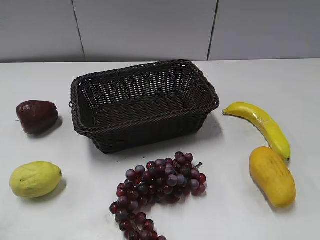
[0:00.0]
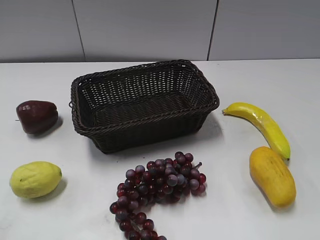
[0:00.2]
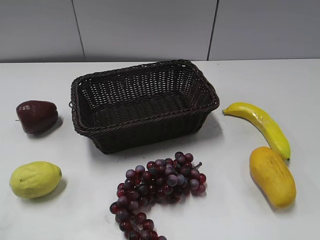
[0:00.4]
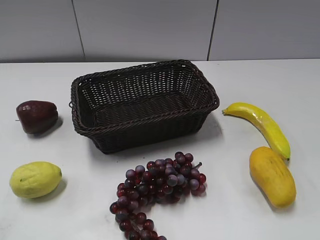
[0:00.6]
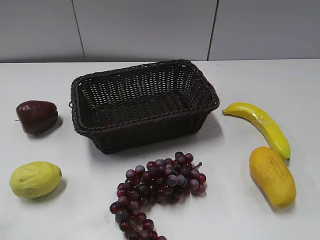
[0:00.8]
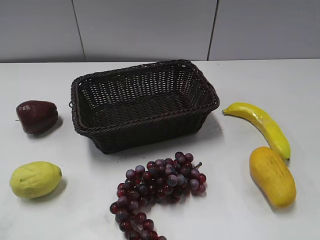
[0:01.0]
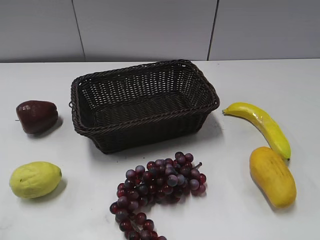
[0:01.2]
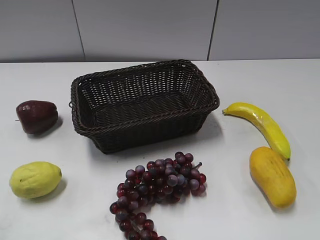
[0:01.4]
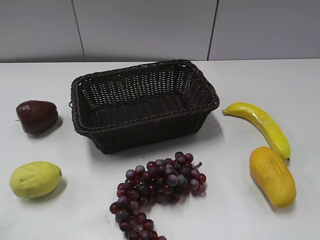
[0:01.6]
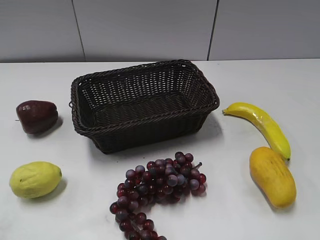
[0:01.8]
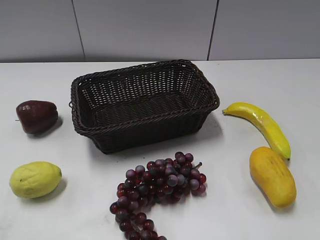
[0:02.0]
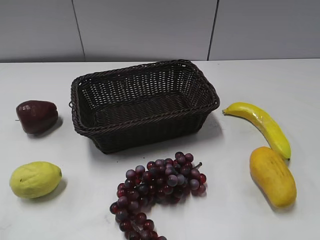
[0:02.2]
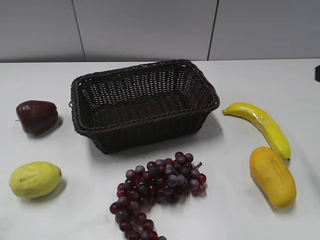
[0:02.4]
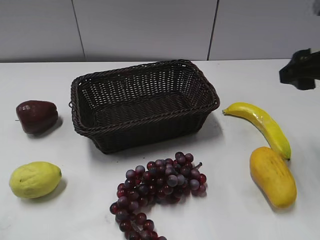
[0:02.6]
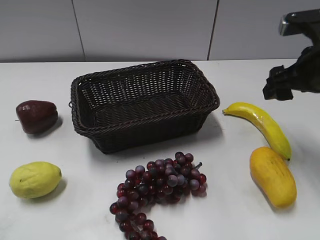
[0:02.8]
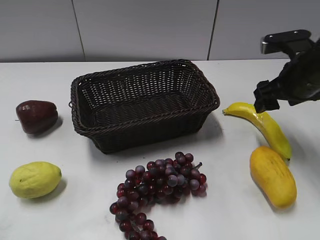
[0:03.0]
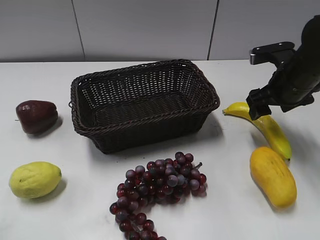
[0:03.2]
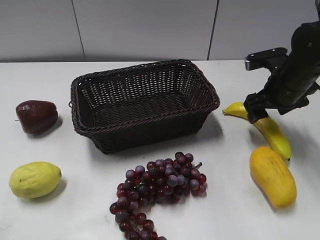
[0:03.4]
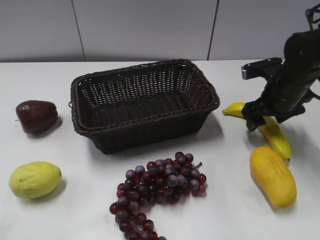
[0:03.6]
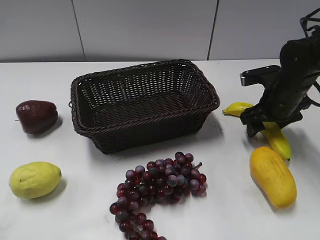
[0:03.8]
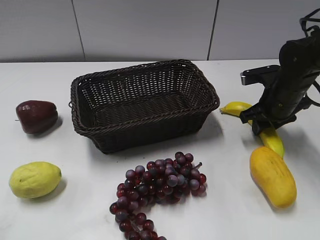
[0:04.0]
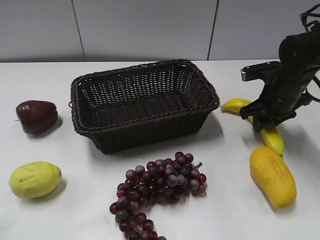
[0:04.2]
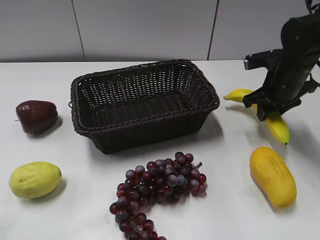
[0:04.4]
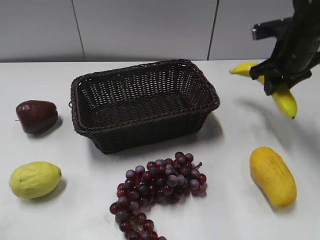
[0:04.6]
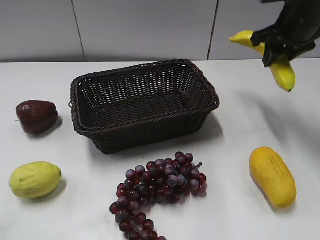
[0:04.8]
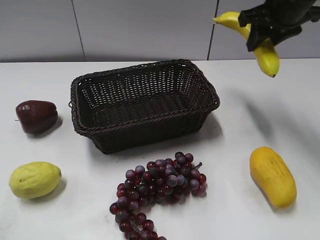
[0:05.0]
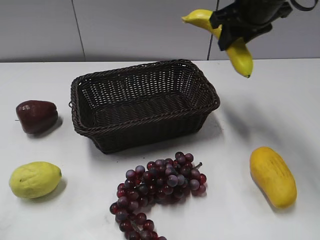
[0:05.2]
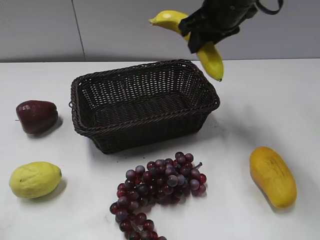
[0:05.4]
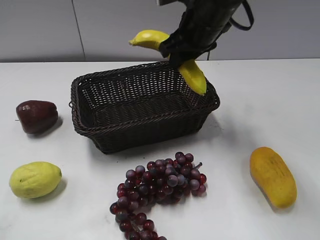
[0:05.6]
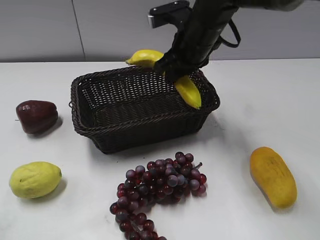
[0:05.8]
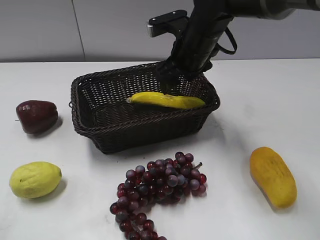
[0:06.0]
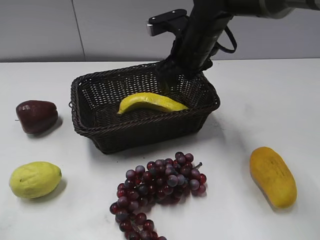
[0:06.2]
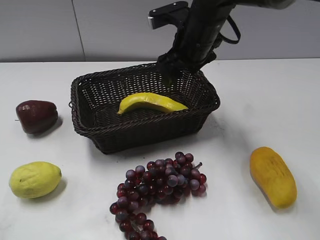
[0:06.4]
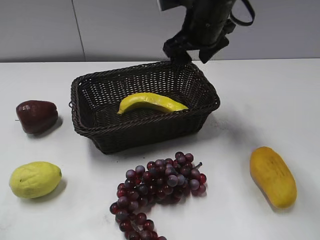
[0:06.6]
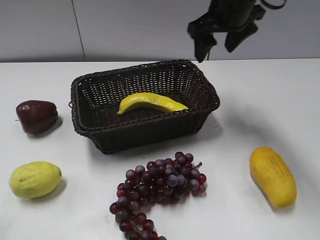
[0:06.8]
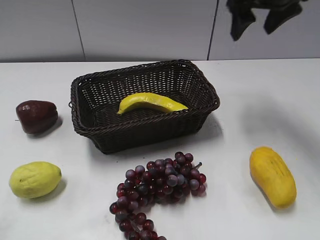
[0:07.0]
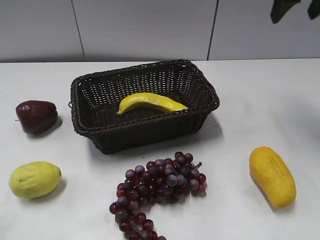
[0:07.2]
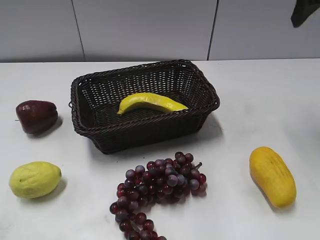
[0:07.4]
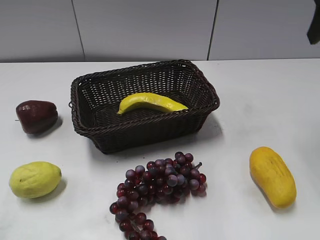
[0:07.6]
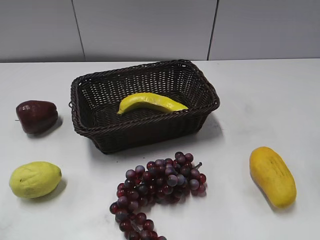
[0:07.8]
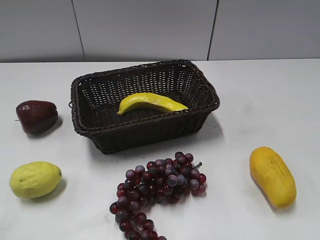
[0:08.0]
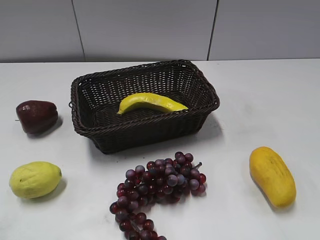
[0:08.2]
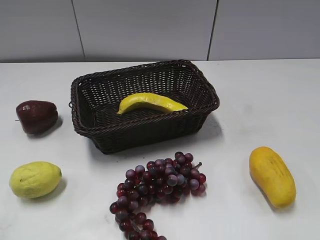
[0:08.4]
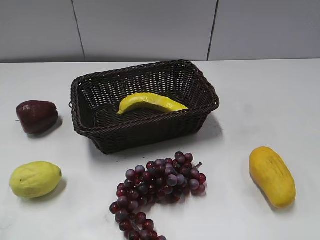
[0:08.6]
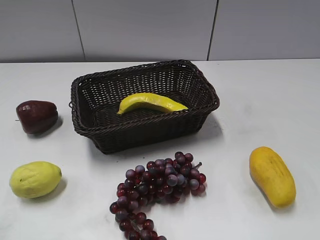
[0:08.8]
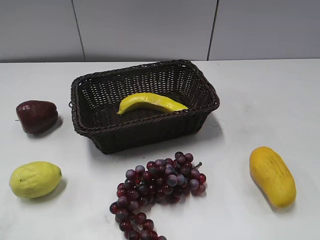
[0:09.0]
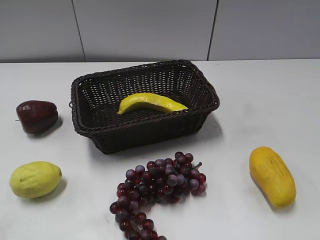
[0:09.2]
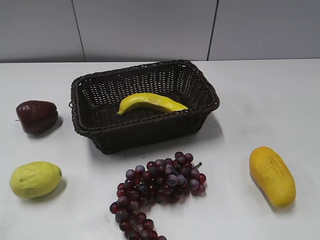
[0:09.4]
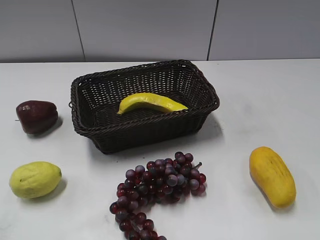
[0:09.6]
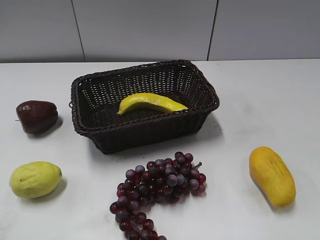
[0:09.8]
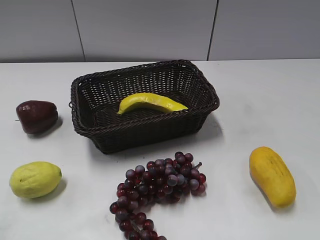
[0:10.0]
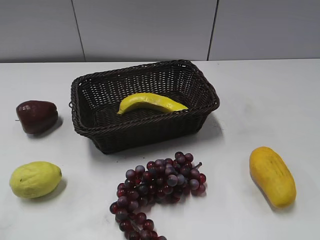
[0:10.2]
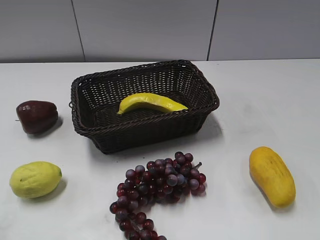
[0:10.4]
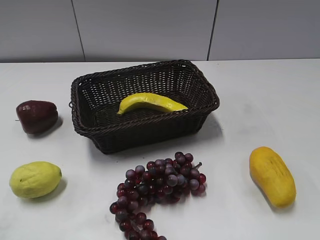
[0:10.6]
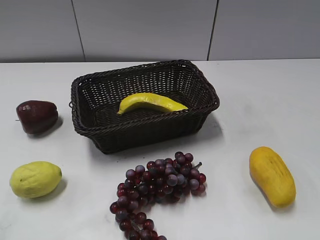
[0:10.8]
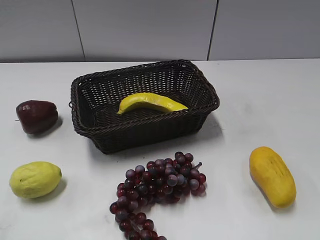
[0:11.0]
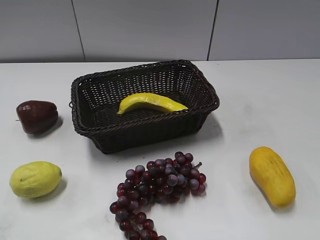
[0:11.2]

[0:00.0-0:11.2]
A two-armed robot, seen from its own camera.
Step, 0:02.4 to 0:04.2: Grasp the banana with right gripper.
Step, 0:04.4 to 0:06.8: Place the banana in the basket with right gripper.
0:01.6 to 0:03.2: The right gripper moves forward and downward, roughly 35 cm.
0:03.2 to 0:04.8: The right gripper shifts about 10 cm upward, and closes up.
0:04.8 to 0:06.4: The right gripper goes roughly 15 cm to the left, and opens.
0:06.4 to 0:08.0: The right gripper is displaced backward, to the right and upward by roughly 35 cm.

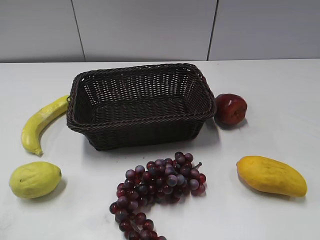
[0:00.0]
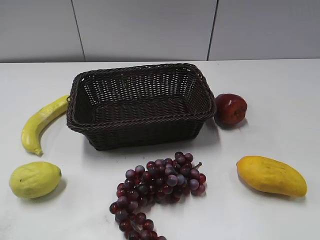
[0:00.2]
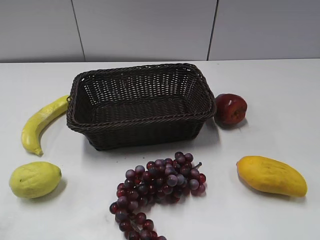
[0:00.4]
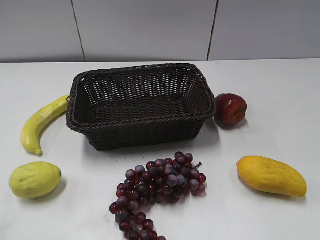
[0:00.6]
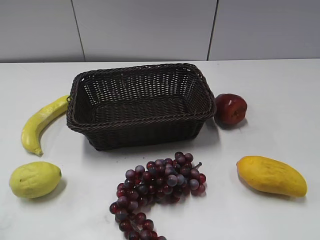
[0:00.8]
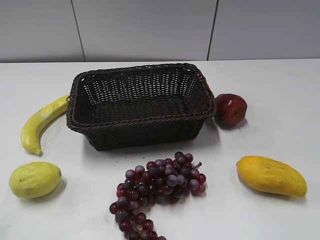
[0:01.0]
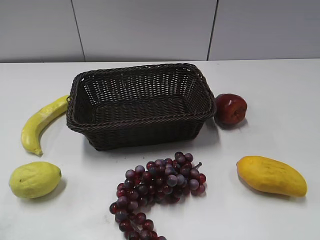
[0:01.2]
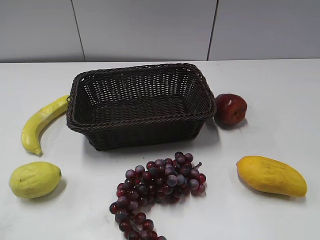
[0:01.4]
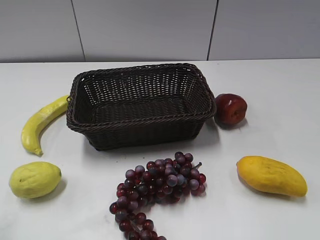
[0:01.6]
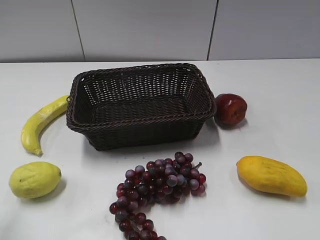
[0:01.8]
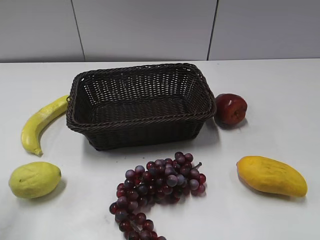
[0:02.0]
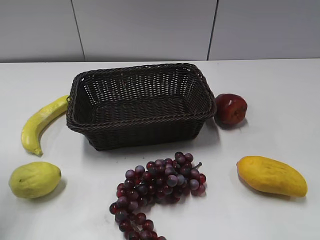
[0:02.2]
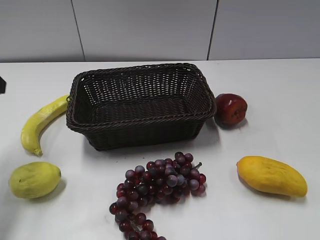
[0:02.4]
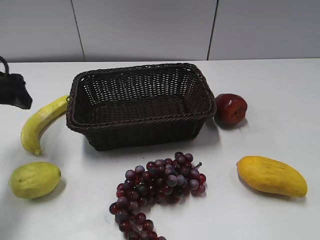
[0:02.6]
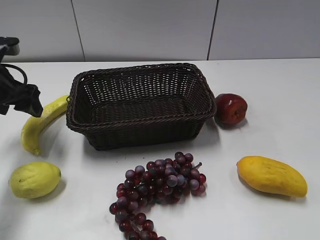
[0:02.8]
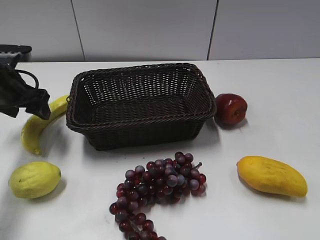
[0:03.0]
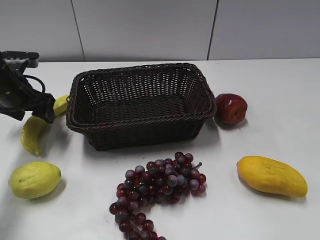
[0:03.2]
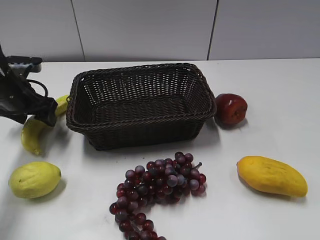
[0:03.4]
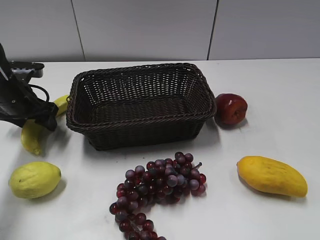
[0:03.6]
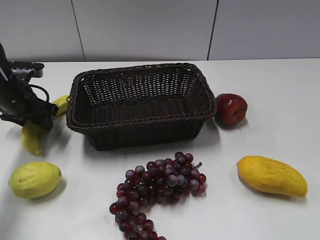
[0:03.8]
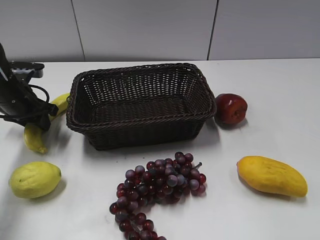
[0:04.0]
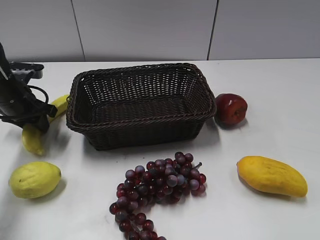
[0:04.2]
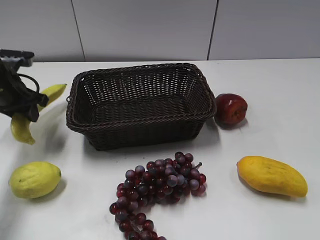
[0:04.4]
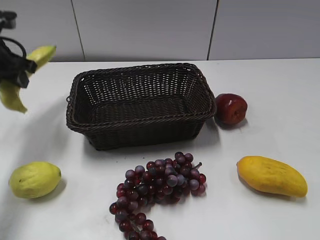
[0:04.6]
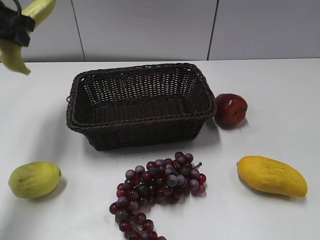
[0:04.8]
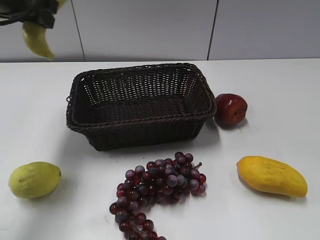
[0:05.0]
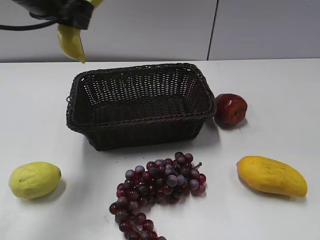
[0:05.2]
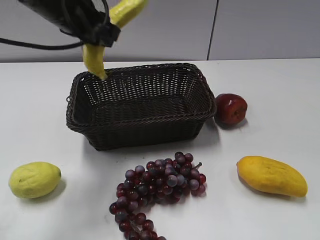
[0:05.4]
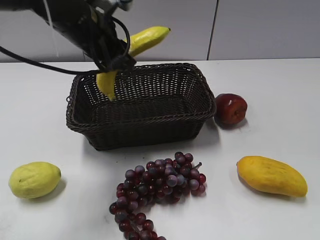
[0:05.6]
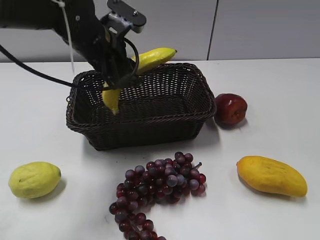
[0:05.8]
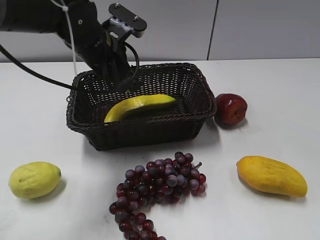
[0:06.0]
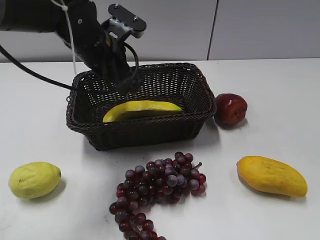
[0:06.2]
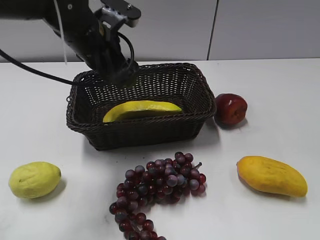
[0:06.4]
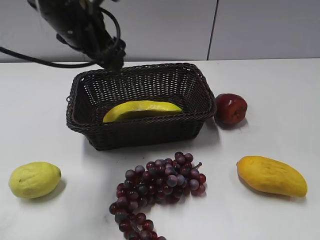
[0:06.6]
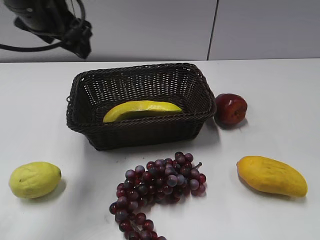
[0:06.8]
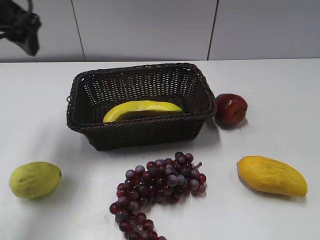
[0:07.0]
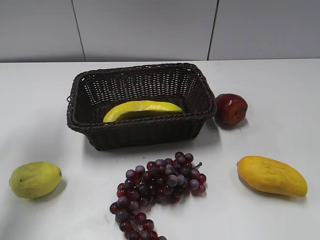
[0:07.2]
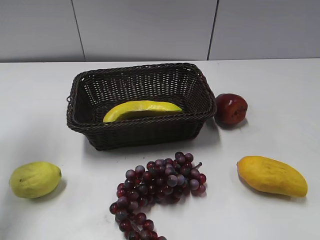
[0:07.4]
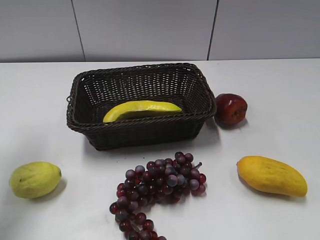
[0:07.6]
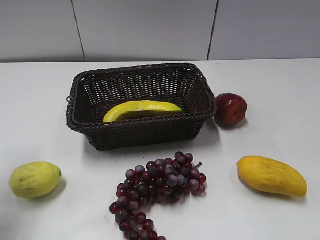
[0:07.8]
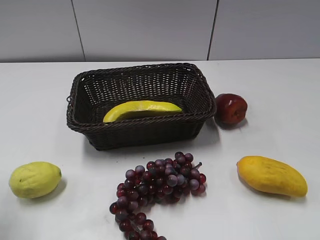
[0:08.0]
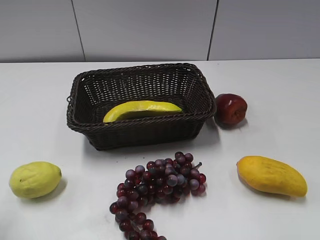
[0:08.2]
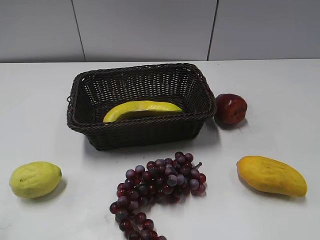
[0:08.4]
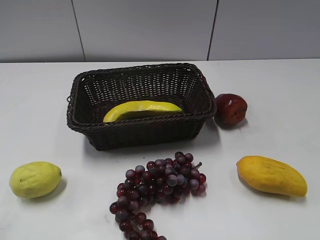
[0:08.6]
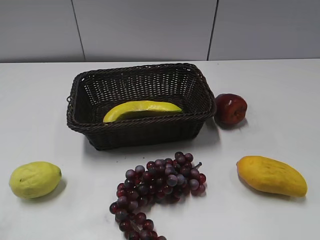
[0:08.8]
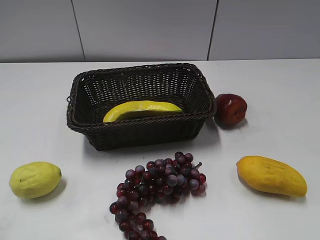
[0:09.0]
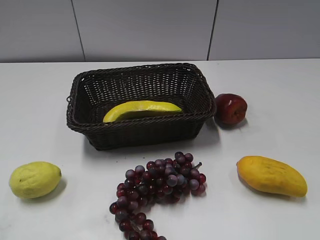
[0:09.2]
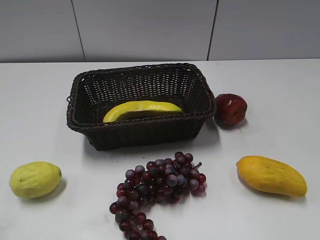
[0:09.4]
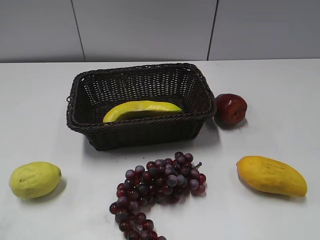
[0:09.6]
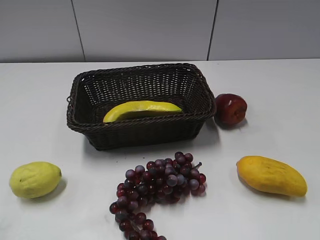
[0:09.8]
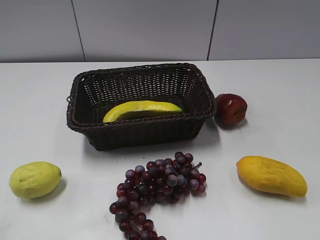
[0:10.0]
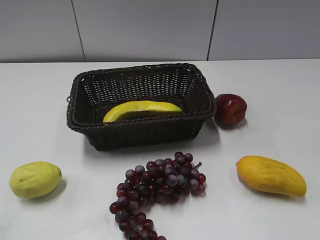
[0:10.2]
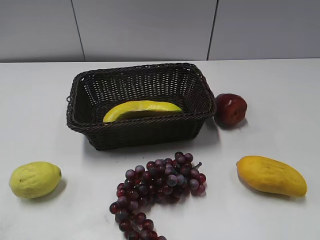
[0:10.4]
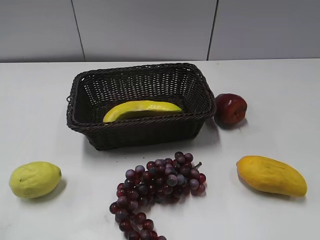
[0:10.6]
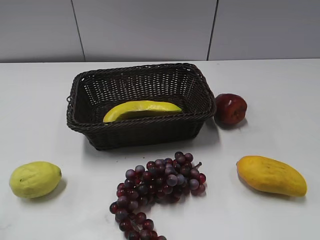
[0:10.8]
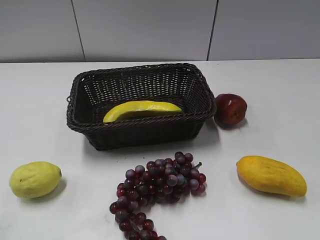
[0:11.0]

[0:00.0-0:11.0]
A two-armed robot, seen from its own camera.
Step, 0:02.2 to 0:04.2: Grasp the banana with left gripper.
Step, 0:04.4 to 0:06.2: Place the banana in the basket with left gripper.
0:01.6 to 0:03.2: The left gripper heads forward and downward, covering about 35 cm.
0:03.2 to 0:04.8: The left gripper heads upward, covering some 15 cm, and closes its fingers.
0:04.8 to 0:06.2: The left gripper is displaced to the right and downward by some 20 cm, and opens.
0:06.2 to 0:07.8: The left gripper is displaced to the left, backward and upward by some 25 cm.
0:07.8 to 0:09.4: The left gripper travels backward by approximately 20 cm.
